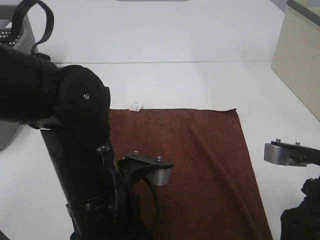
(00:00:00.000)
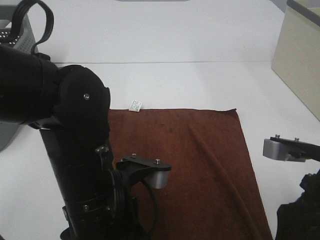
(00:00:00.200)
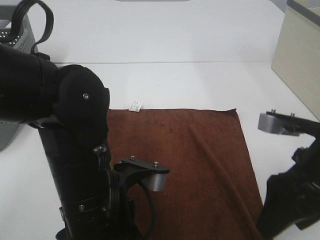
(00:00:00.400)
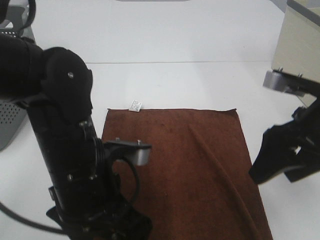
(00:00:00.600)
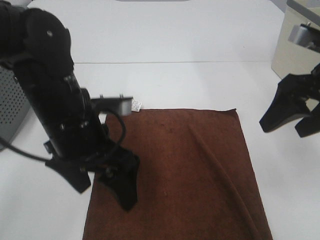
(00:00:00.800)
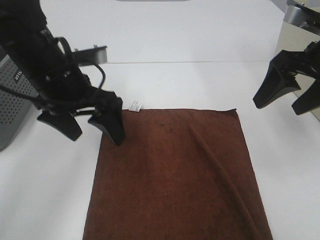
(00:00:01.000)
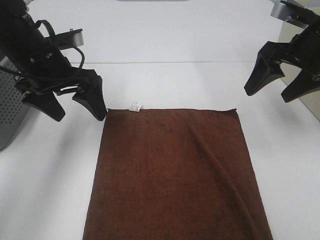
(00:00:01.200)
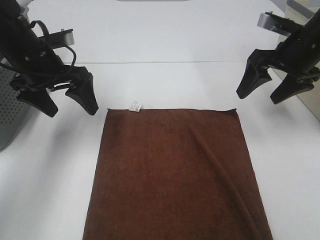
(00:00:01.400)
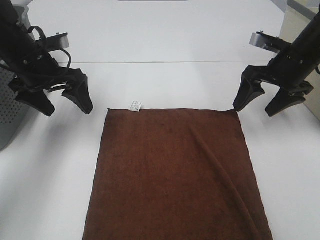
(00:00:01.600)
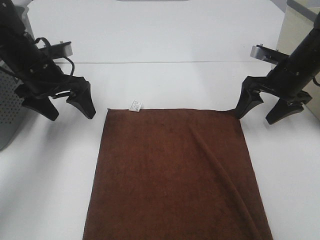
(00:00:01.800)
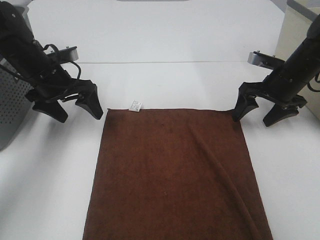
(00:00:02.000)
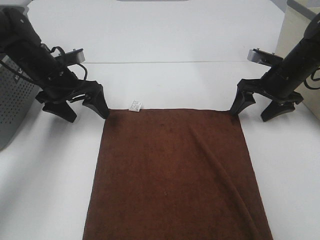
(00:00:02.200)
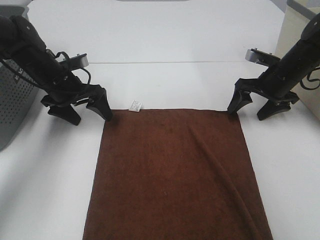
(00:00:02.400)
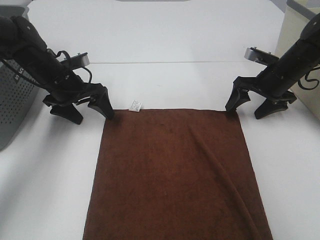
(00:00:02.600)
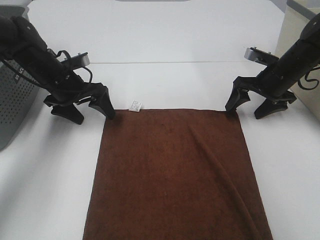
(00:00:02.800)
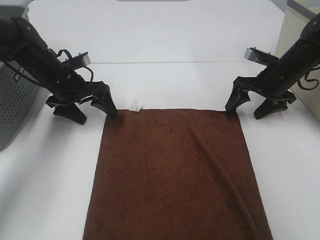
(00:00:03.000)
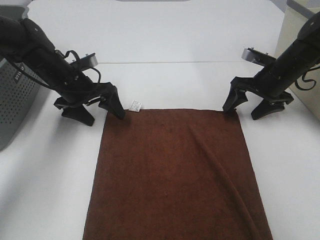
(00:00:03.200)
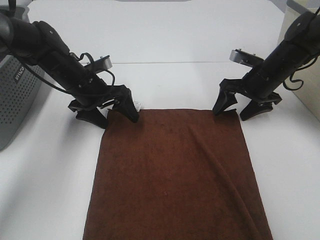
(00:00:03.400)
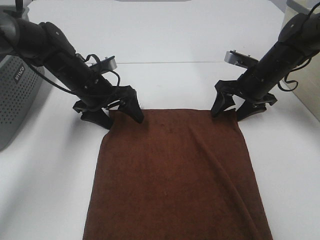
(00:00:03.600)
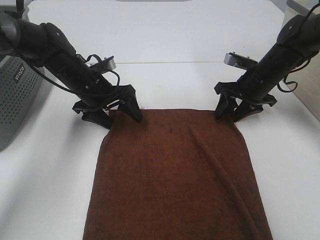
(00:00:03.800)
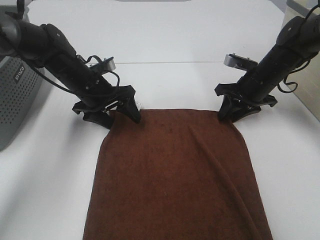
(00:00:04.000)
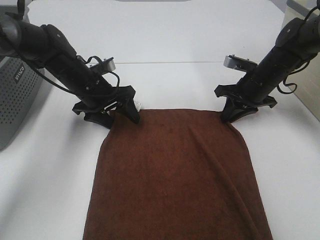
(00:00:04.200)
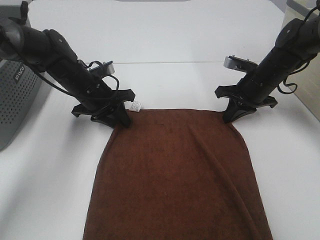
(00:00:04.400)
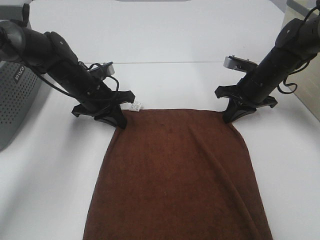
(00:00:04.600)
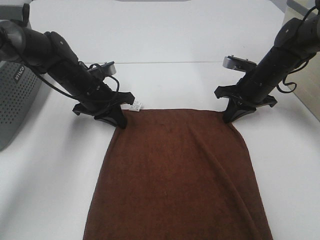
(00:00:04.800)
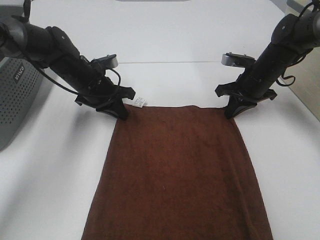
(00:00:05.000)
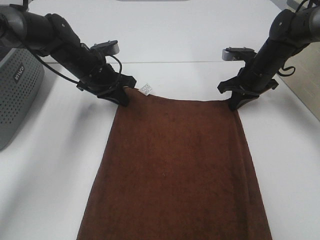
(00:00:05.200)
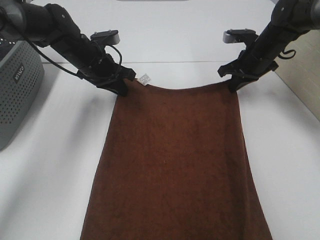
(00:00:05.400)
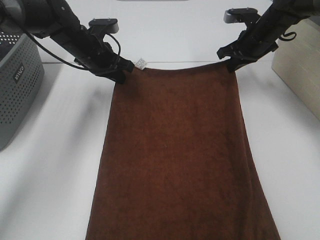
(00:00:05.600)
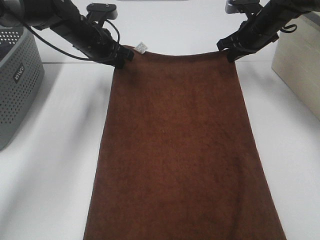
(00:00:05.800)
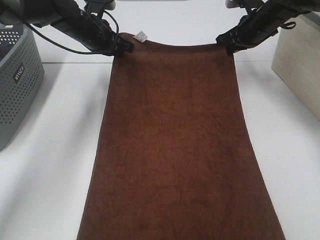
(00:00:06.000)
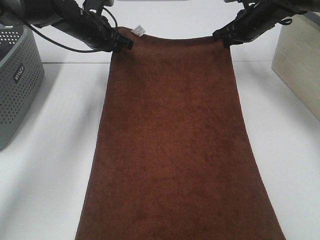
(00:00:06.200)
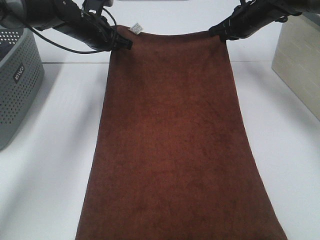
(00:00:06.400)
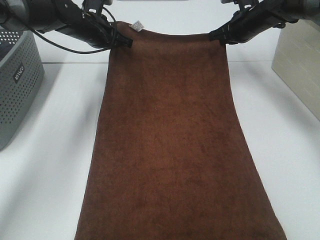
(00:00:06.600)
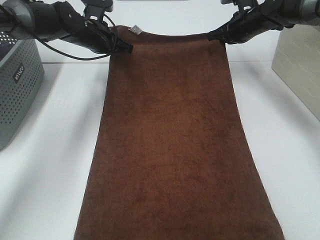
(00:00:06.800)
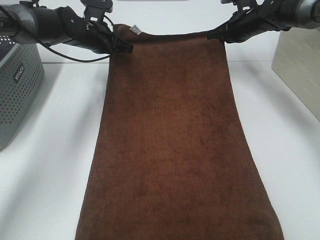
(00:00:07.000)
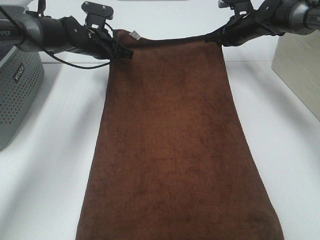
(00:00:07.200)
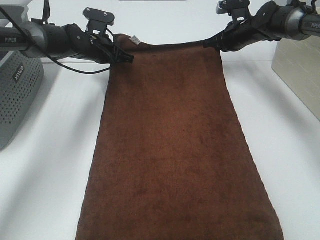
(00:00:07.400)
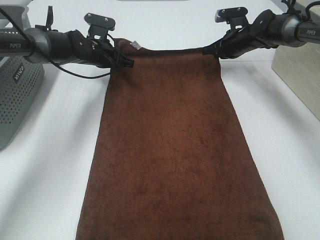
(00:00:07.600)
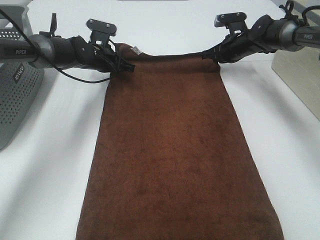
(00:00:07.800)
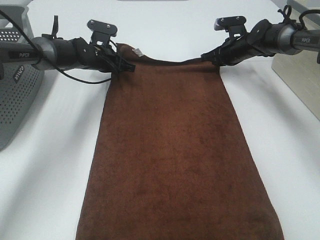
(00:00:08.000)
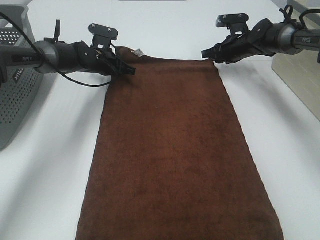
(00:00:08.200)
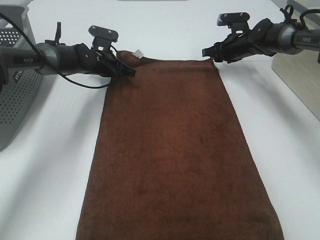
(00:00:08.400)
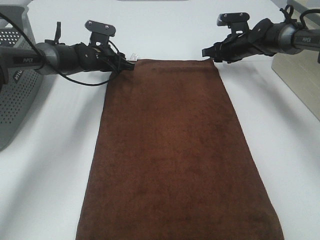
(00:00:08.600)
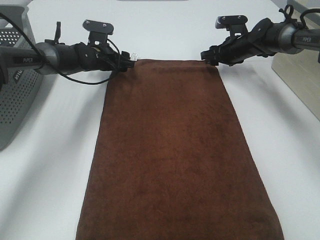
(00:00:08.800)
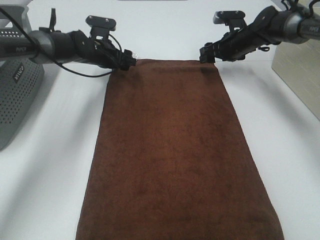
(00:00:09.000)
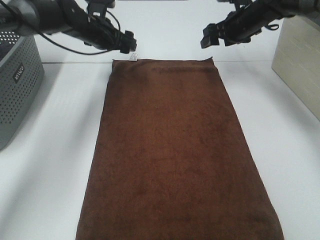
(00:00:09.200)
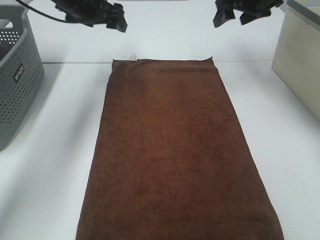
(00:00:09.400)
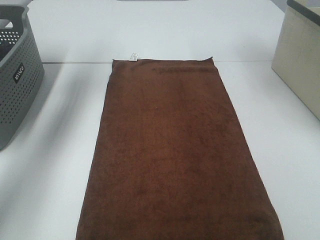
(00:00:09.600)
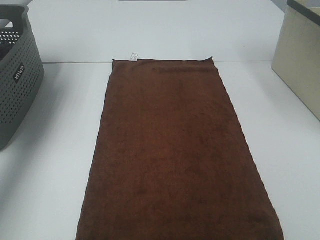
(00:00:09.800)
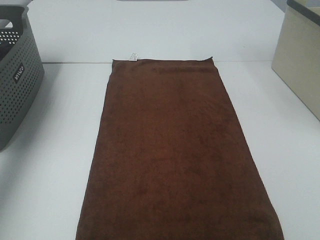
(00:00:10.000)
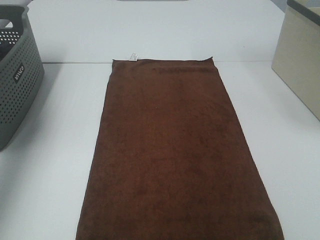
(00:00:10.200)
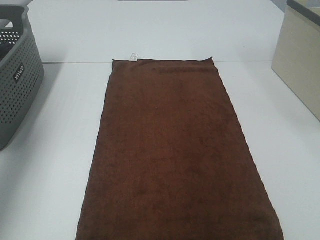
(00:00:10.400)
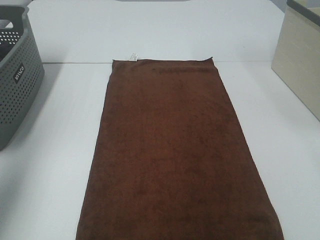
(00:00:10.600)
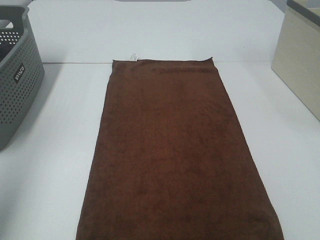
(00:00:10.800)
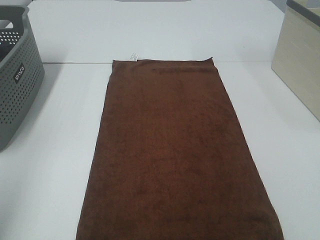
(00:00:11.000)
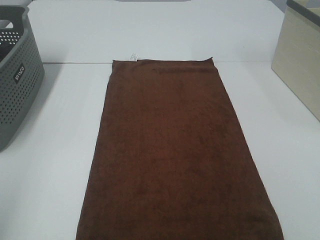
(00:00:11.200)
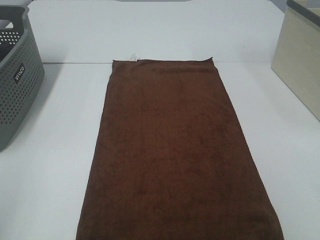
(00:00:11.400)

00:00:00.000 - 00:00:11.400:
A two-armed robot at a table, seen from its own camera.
Task of the whole recording: Remove the towel and place it.
00:00:00.000 - 00:00:01.400: The left gripper moves forward and to the left, approximately 25 cm; the right gripper shifts some 20 cm forward.
00:00:01.400 - 00:00:02.800: Both grippers travel together downward and forward, some 10 cm.
00:00:02.800 - 00:00:04.200: The right gripper closes; the left gripper moves to the right, some 5 cm.
00:00:04.200 - 00:00:05.600: The two grippers go about 10 cm forward and upward. The left gripper closes.
00:00:05.600 - 00:00:07.200: Both grippers travel together forward, roughly 5 cm.
00:00:07.200 - 00:00:08.600: The left gripper shifts by roughly 5 cm, and opens its fingers; the right gripper opens its fingers.
00:00:08.600 - 00:00:10.000: The right gripper shifts approximately 35 cm upward and backward, and opens its fingers, while the left gripper shifts some 40 cm upward, to the left and backward.
00:00:10.000 - 00:00:11.400: The left gripper is displaced backward by about 35 cm.

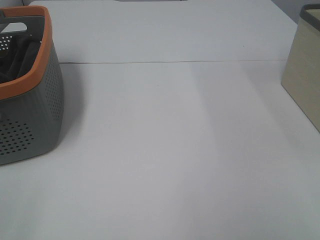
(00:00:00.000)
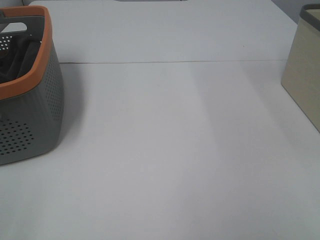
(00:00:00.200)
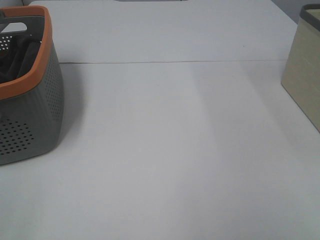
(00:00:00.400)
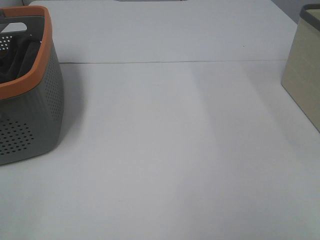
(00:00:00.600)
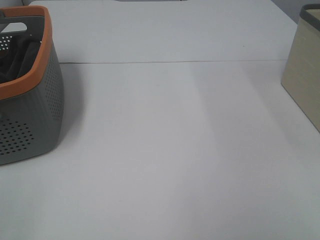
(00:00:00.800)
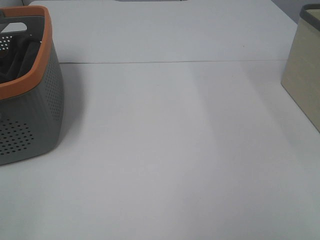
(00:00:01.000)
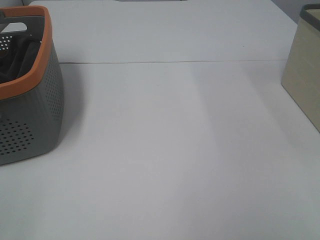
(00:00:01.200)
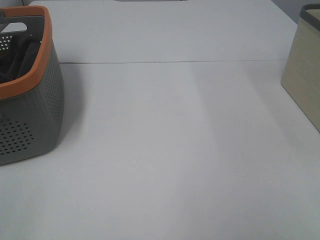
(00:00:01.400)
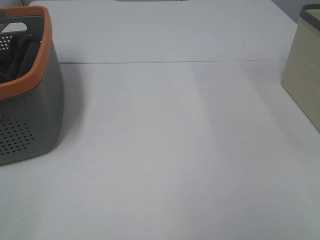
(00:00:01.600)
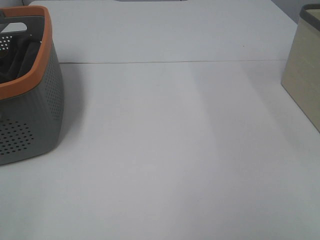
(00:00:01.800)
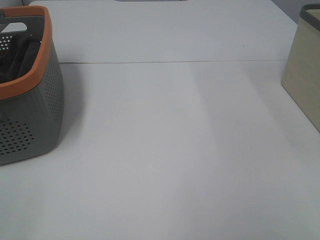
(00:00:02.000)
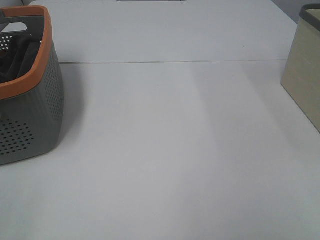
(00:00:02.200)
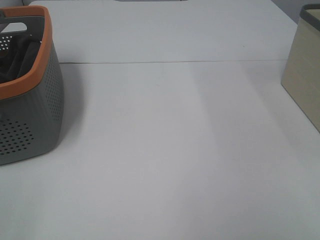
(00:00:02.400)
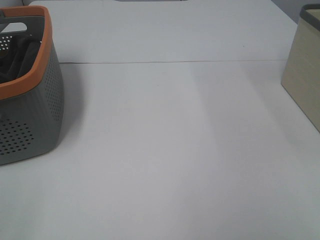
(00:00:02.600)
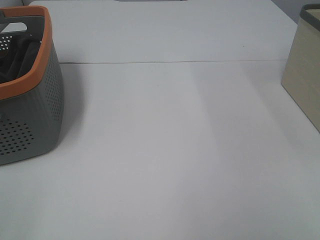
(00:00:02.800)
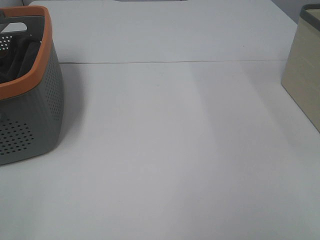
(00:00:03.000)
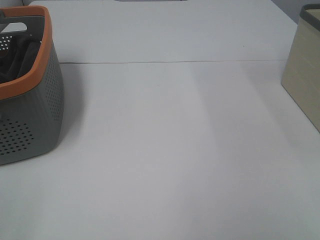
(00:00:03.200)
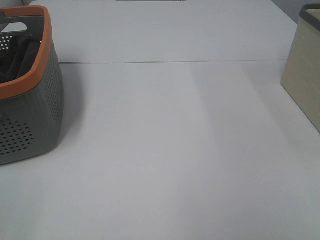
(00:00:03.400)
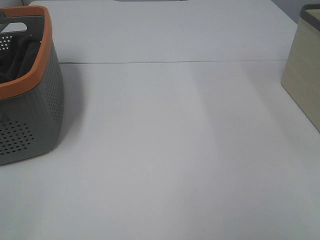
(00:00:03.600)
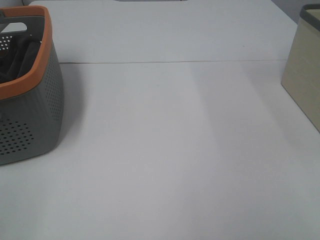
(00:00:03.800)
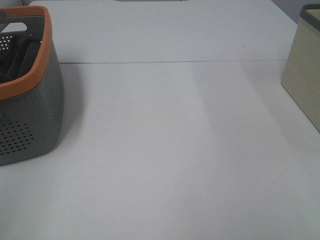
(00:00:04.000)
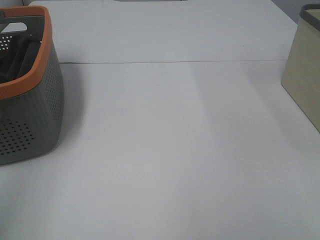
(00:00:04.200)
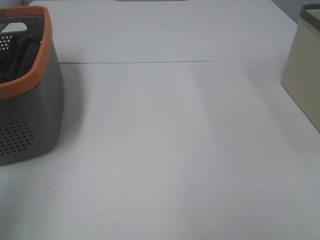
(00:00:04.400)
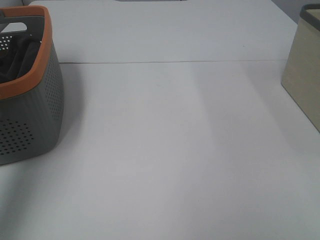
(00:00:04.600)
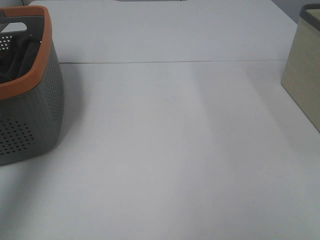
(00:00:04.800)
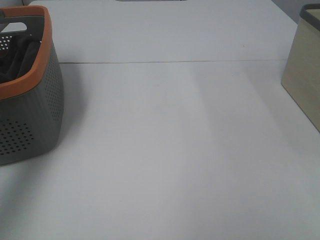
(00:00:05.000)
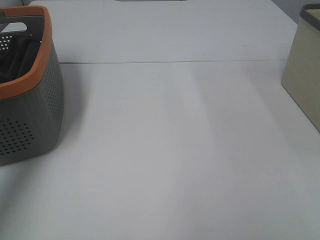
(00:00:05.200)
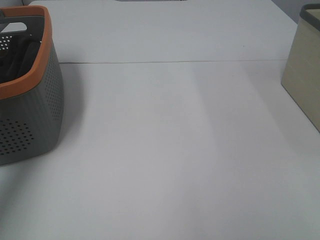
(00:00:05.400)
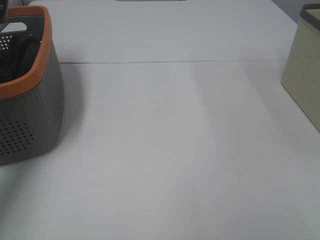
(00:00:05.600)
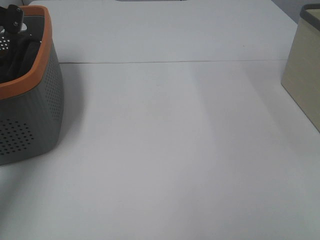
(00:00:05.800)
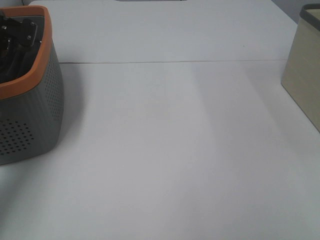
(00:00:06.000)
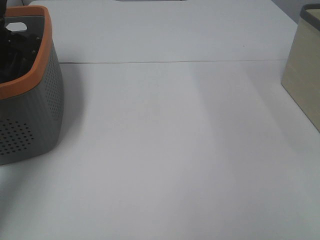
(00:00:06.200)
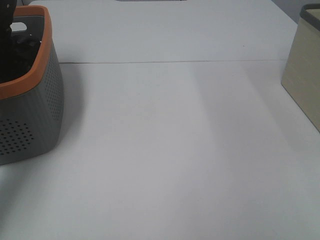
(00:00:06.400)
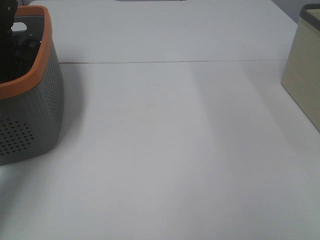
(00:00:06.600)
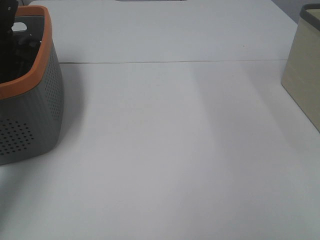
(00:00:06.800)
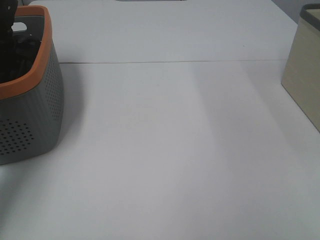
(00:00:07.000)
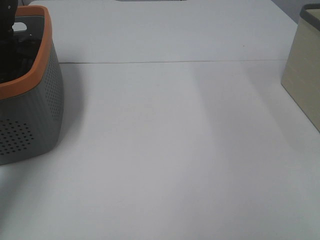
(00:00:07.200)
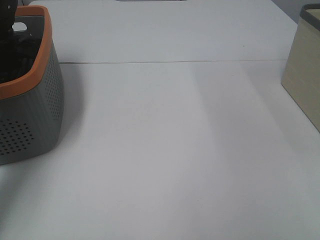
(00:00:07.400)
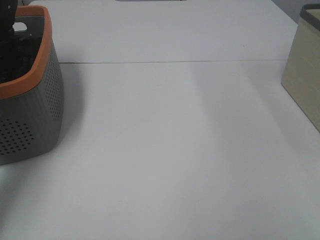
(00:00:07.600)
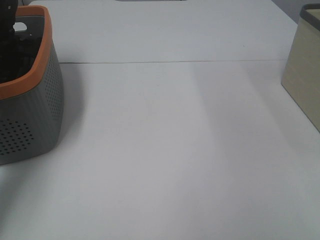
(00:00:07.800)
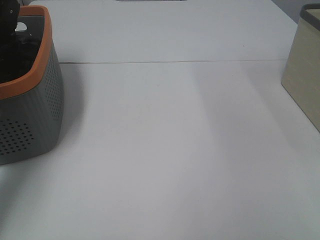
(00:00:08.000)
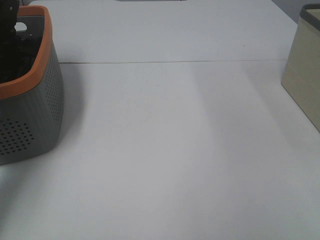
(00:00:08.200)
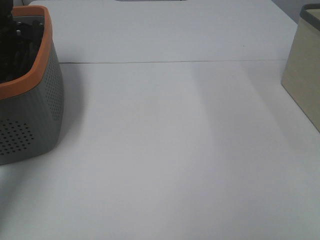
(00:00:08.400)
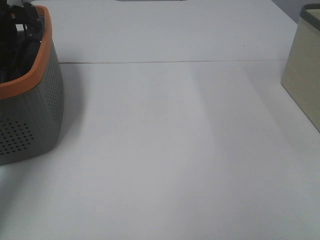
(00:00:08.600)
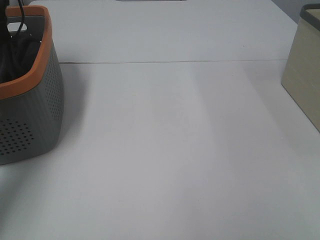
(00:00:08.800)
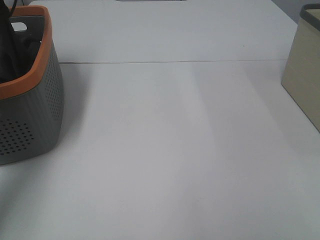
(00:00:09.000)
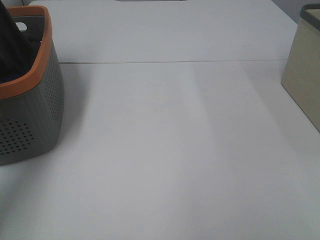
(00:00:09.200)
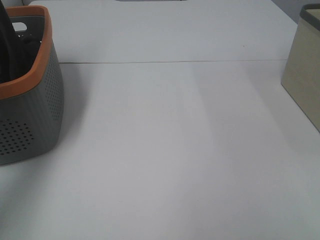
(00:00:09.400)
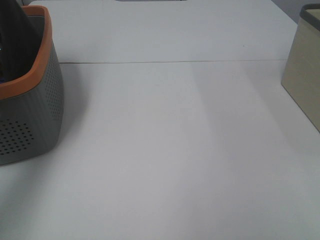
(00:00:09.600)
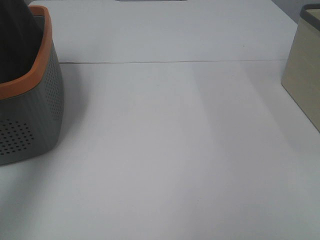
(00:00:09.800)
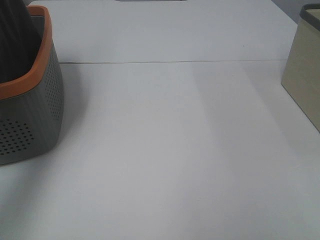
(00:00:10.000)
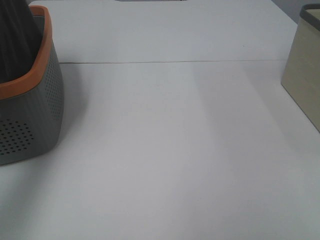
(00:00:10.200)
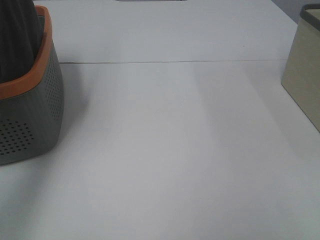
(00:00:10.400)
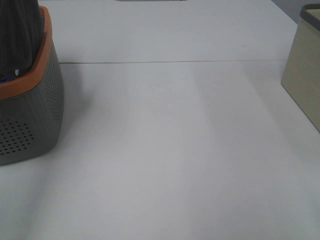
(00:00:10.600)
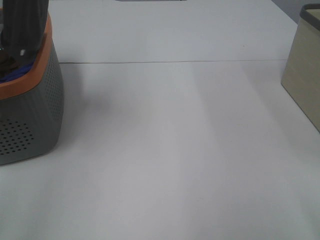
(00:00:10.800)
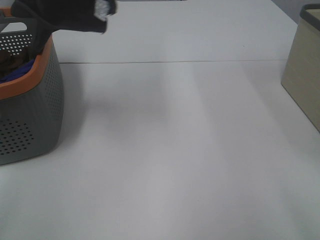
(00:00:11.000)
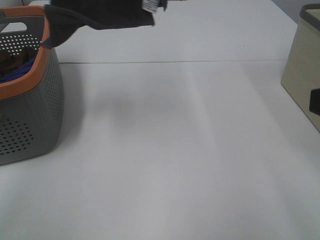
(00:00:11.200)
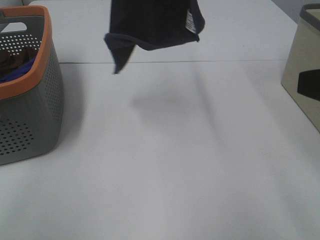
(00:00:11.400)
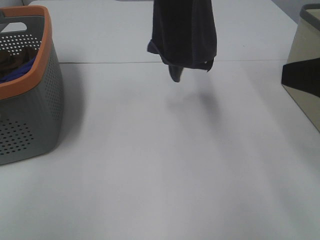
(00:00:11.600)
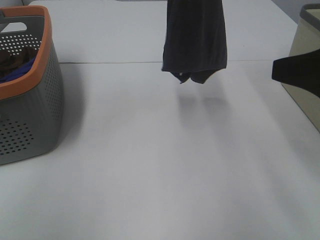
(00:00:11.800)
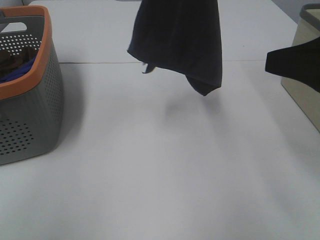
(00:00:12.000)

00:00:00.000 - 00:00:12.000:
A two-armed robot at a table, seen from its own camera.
Task of the whole recording: Remove the towel and place it.
00:00:00.000 - 00:00:03.000: Both grippers stay put.
00:00:03.000 - 00:00:04.400: The left gripper goes approximately 20 cm upward and forward.
00:00:04.400 - 00:00:06.000: The left gripper travels forward and downward by approximately 40 cm.
00:00:09.000 - 00:00:10.400: The left gripper moves upward and backward, approximately 20 cm.
00:00:10.400 - 00:00:12.000: The left gripper is displaced to the right by some 25 cm; the right gripper travels forward by some 15 cm.
